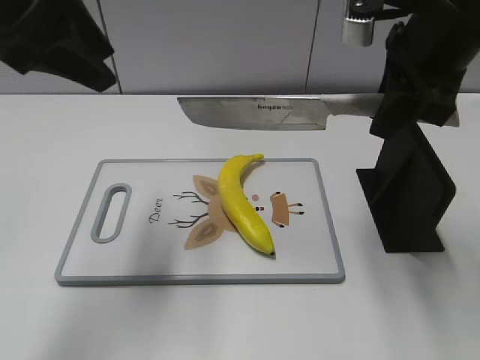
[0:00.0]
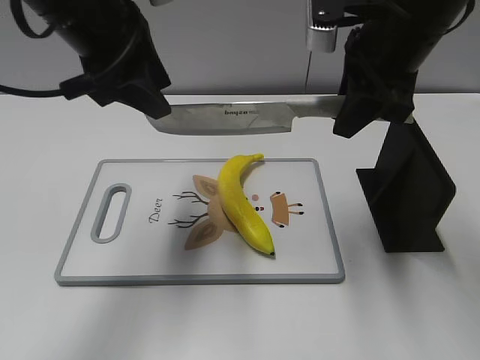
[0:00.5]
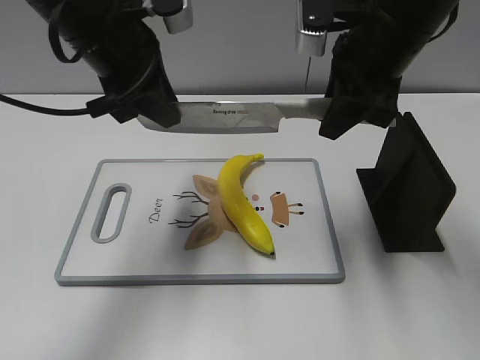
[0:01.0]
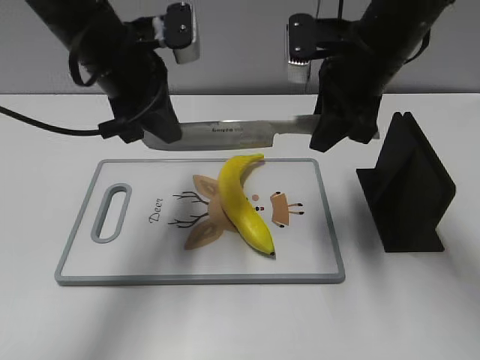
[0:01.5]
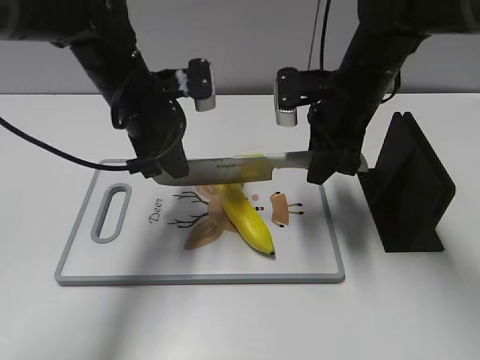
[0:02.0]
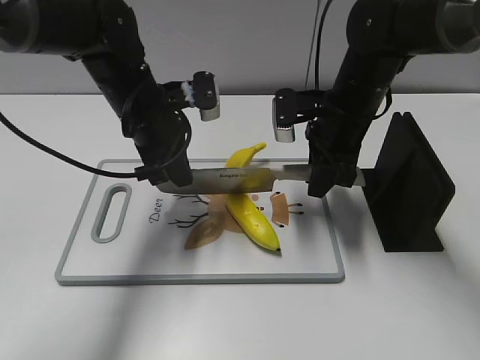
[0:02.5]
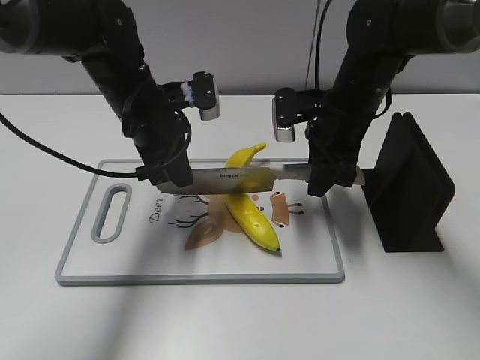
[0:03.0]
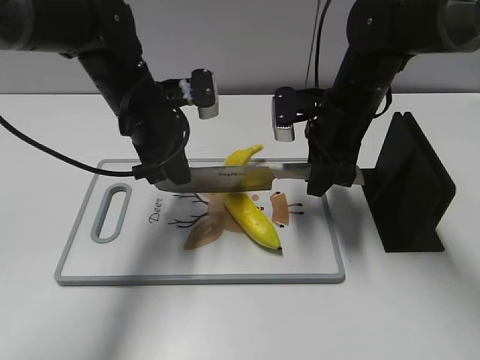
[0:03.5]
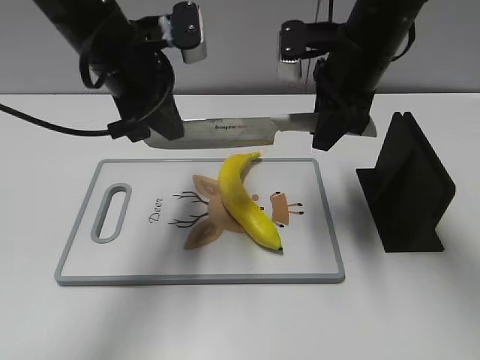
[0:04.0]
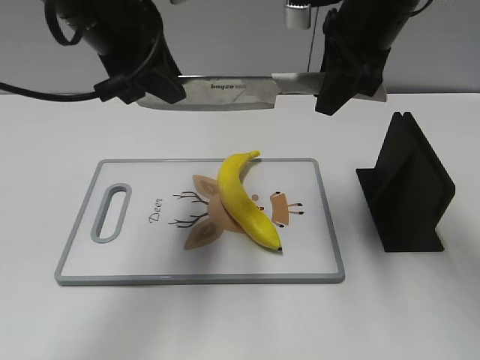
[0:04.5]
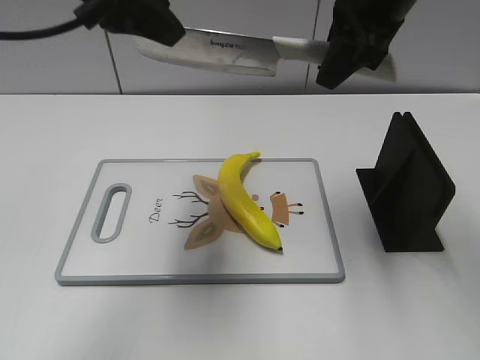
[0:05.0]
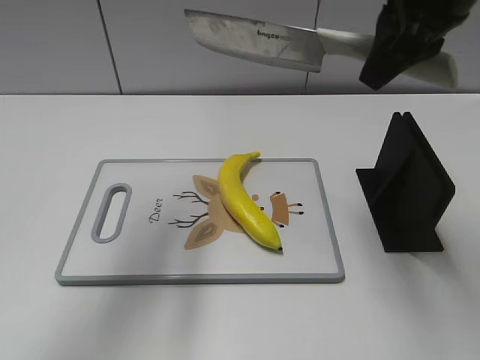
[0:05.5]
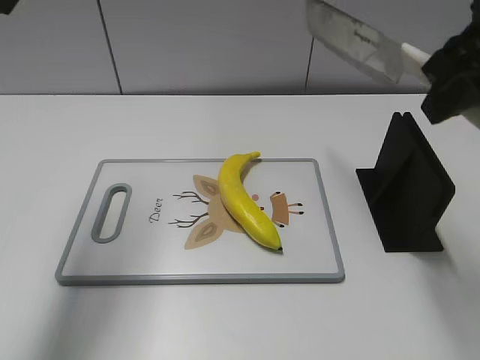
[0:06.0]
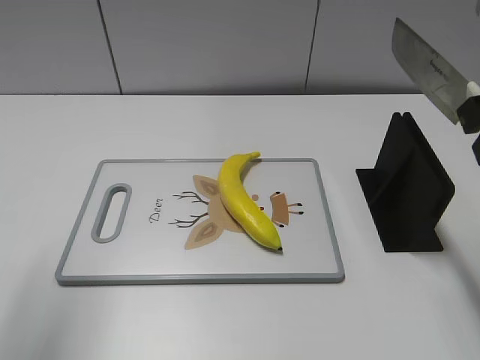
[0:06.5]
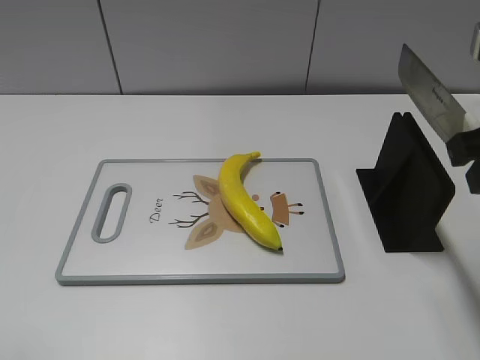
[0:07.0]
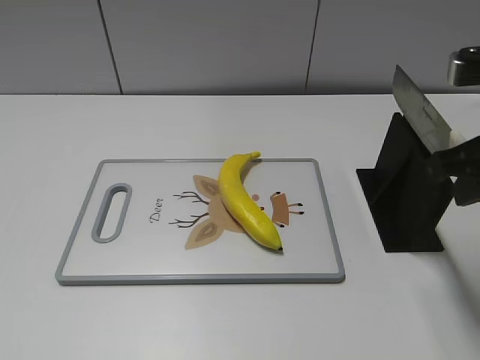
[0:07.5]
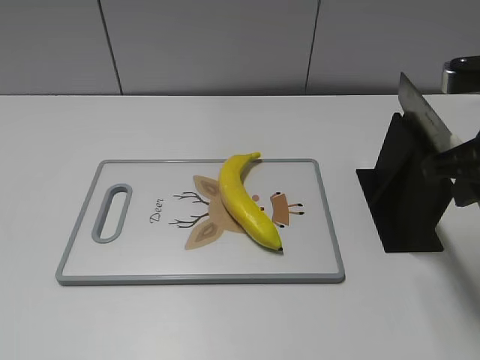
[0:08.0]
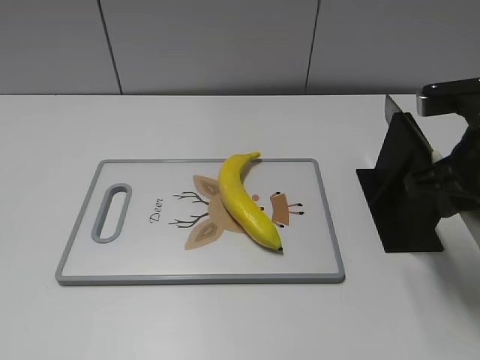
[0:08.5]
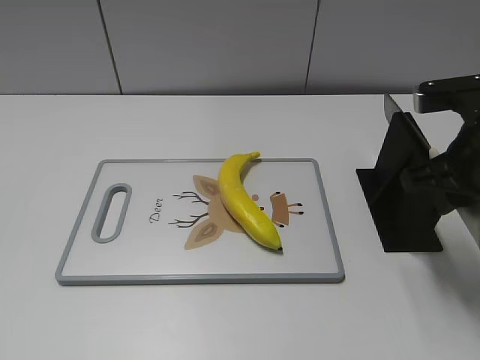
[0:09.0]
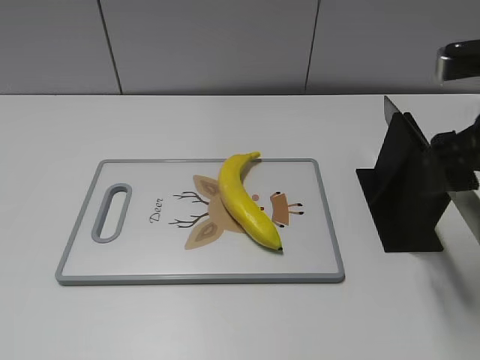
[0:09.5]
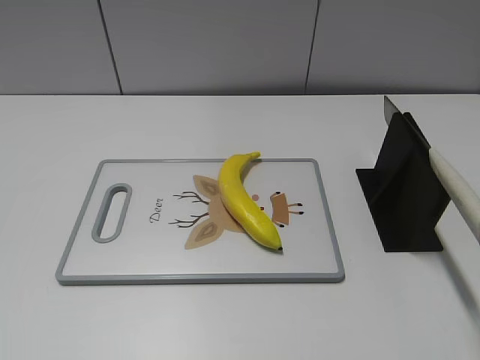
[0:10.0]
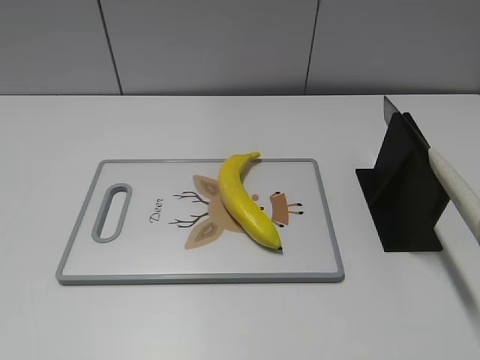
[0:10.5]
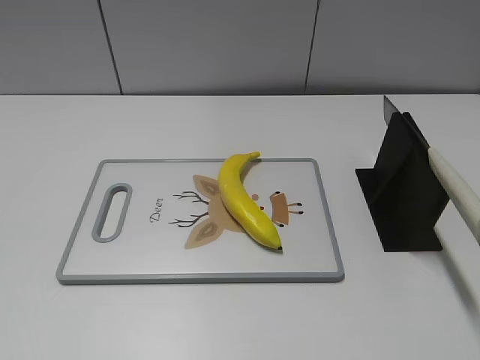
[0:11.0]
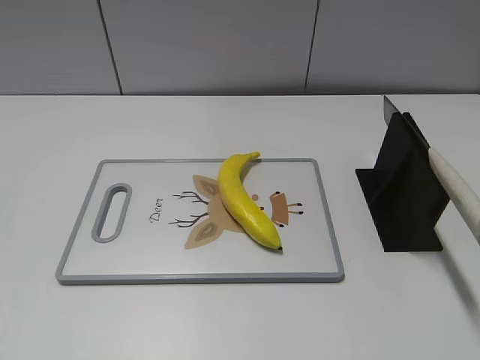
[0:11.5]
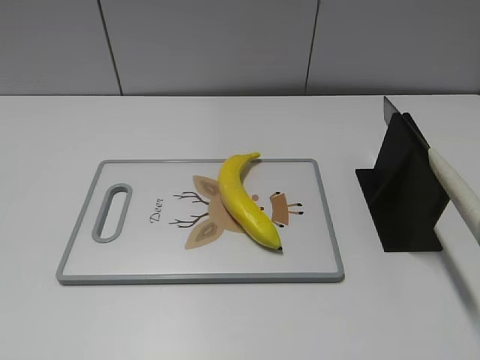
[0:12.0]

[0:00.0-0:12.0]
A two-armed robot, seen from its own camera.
Task of the whole recording: cut plastic banana.
Step, 0:00.0 to 0:03.0: Lift the knife with your right hand.
Step, 0:04.0 to 0:05.5: Cut the banana with your right hand.
Step, 0:06.5 to 0:07.0: Lift the knife with your right hand.
Step, 0:07.5 to 0:12.0: Place the knife on the storage rack with your right hand.
0:00.0 to 0:02.0: The left gripper travels downward, to the right and forward by some 20 cm, and closes up; the right gripper moves downward and forward, about 15 cm.
0:02.0 to 0:04.0: The grippers both shift upward by approximately 5 cm.
0:04.0 to 0:06.0: The left gripper travels upward, to the left and backward by roughly 20 cm, and opens, while the right gripper shifts approximately 20 cm backward, upward and to the right.
0:06.0 to 0:08.0: The left gripper is displaced backward and downward by roughly 30 cm; the right gripper shifts approximately 10 cm downward.
0:08.0 to 0:10.0: The right gripper travels backward and upward by some 10 cm, and opens its fingers.

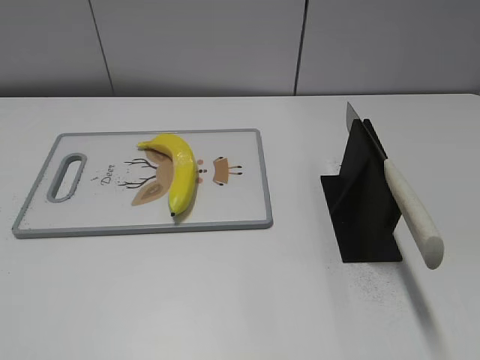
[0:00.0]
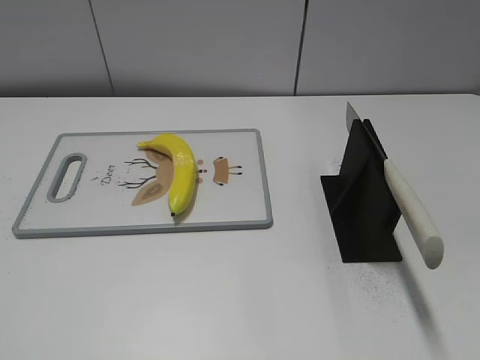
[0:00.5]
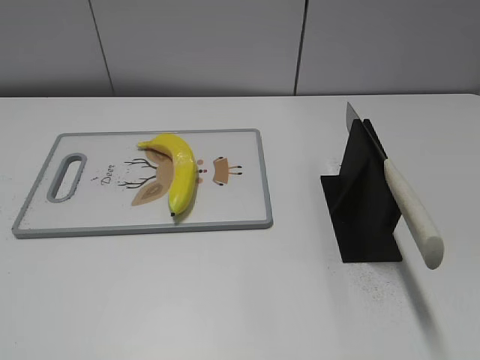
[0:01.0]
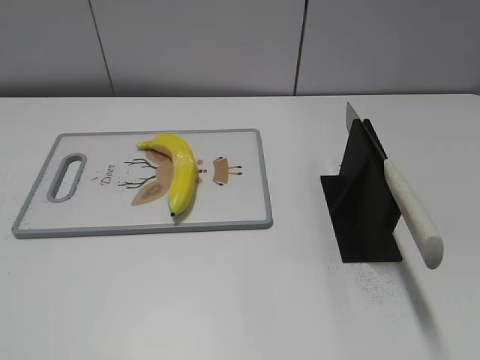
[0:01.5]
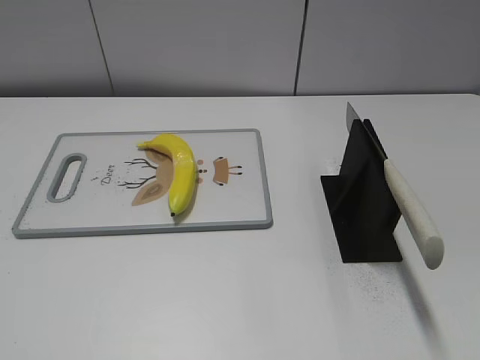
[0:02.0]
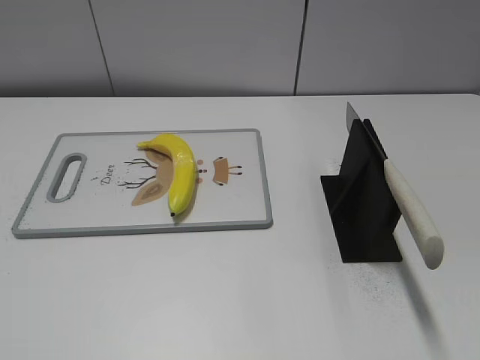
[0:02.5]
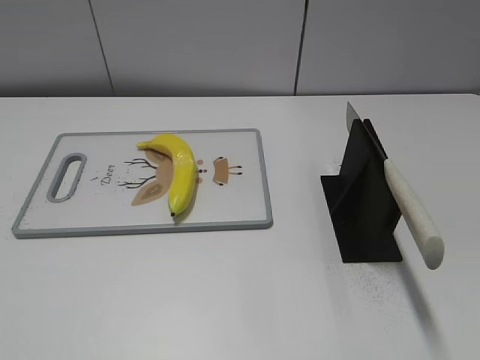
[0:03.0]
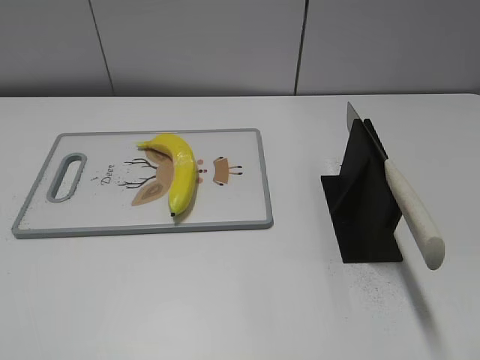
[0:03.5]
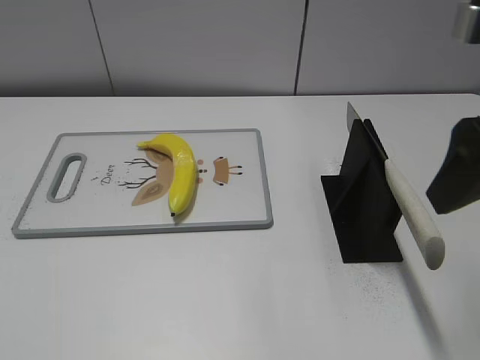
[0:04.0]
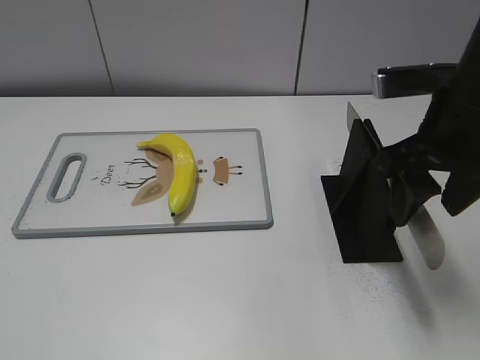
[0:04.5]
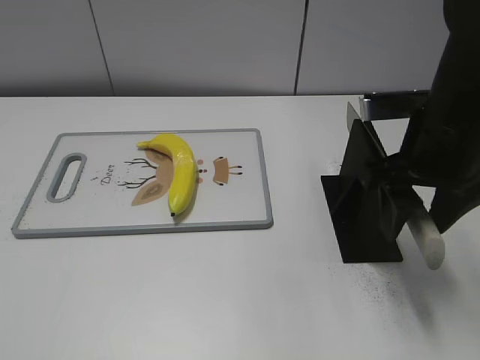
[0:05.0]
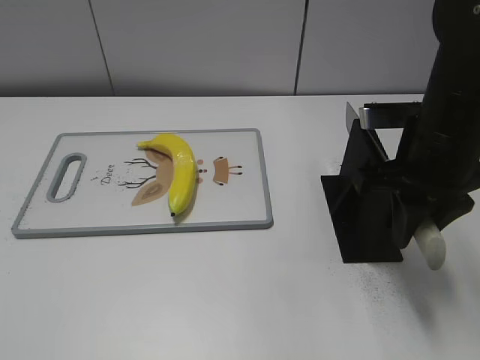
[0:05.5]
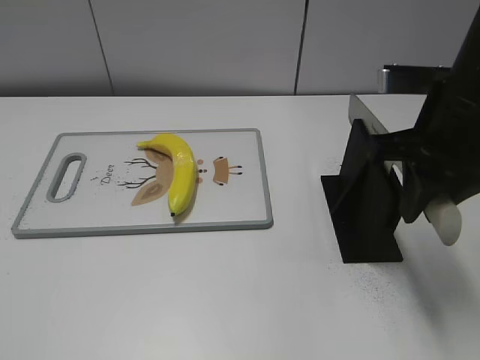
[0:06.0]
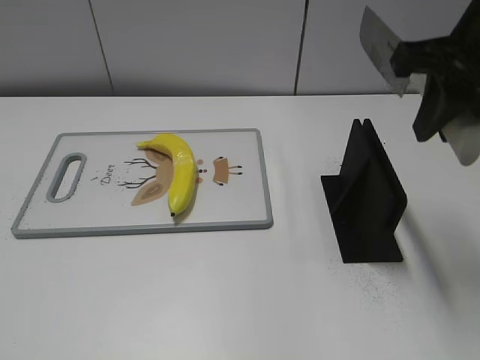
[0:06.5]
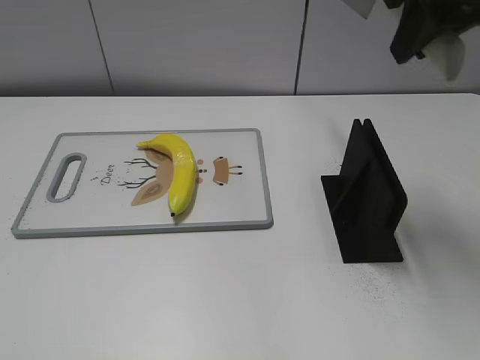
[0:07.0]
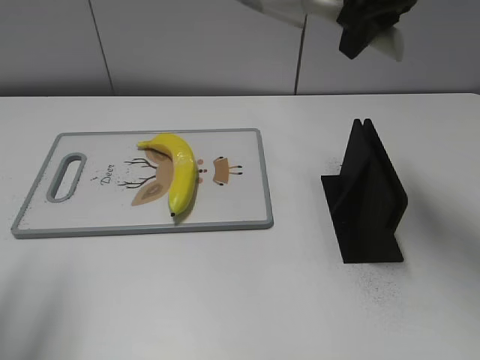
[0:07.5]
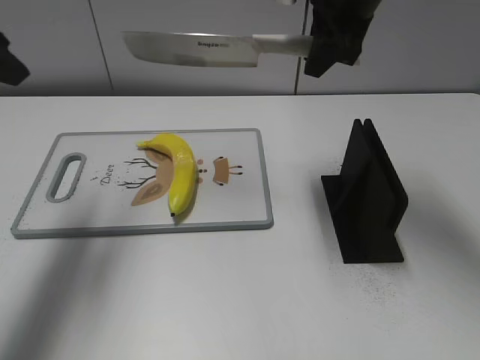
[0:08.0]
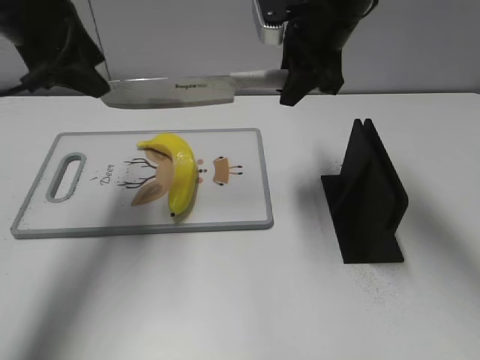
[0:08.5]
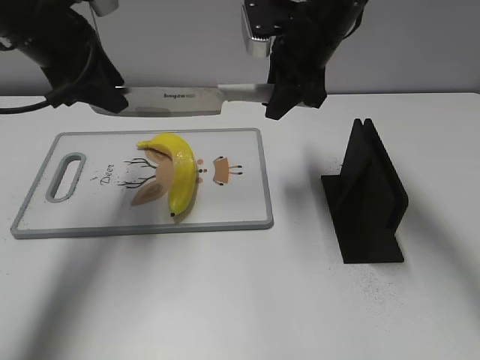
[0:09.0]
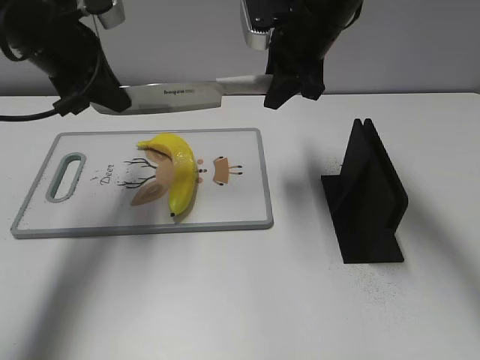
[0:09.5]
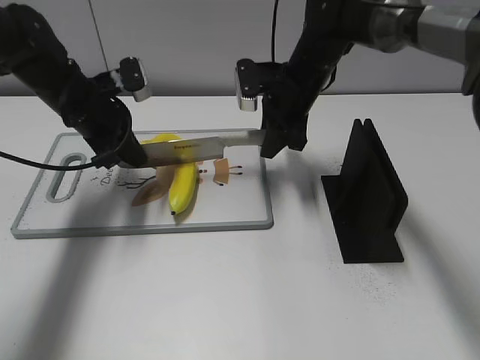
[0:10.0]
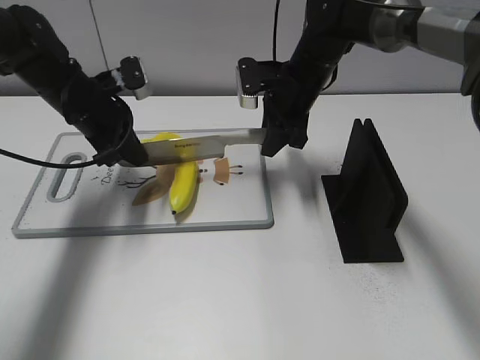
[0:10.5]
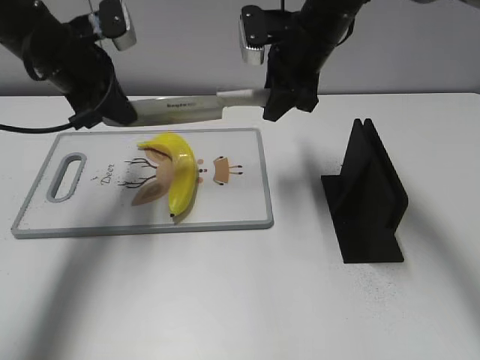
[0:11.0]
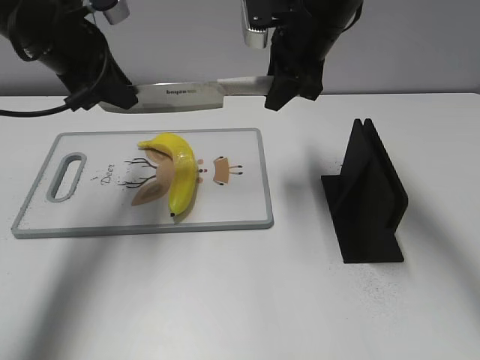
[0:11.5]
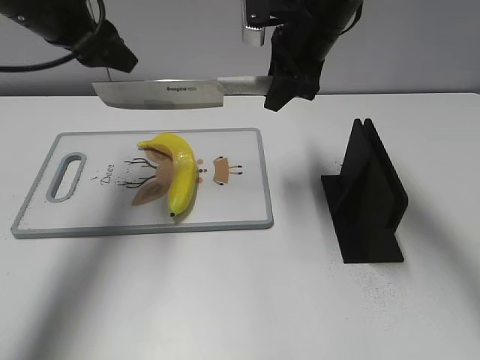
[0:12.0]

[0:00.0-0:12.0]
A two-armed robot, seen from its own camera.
Task of the whole recording: cut plastic banana.
Step, 0:00.0 to 0:06.5: Grab the knife handle with your right hand.
Step, 0:07.0 to 0:11.5: Lift the knife with your right hand.
0:02.0 to 0:04.0: The right gripper is displaced forward by roughly 20 cm.
0:04.0 to 0:06.0: The right gripper moves forward and downward, approximately 10 cm, and closes up.
0:06.0 to 0:08.0: The left gripper heads forward, covering approximately 30 cm; the right gripper travels forward and to the left by some 15 cm.
0:08.0 to 0:10.0: The left gripper heads downward and forward, covering roughly 20 cm, and closes up. The right gripper is displaced downward by roughly 15 cm.
0:10.0 to 0:12.0: The two grippers go roughly 10 cm upward. The left gripper opens up.

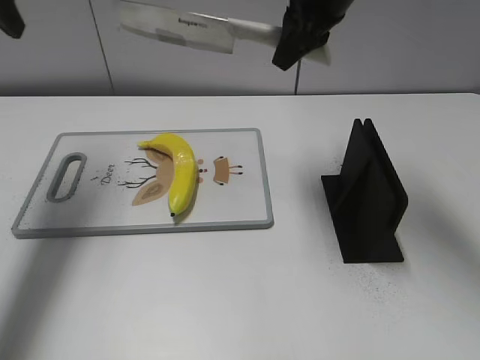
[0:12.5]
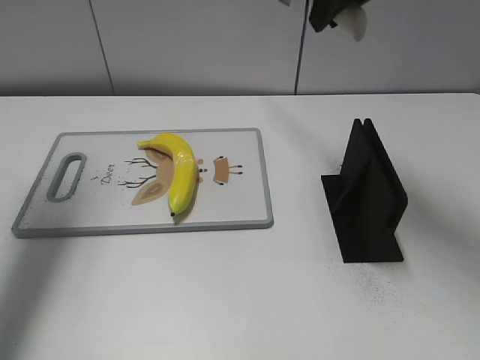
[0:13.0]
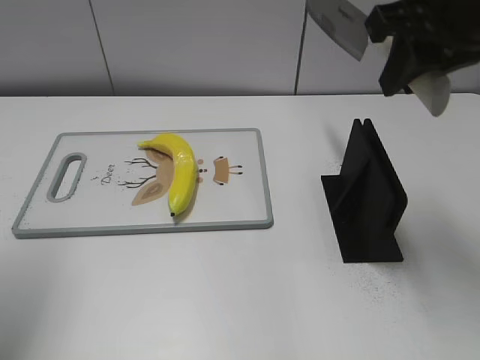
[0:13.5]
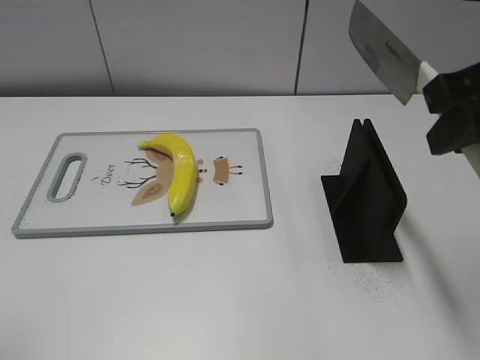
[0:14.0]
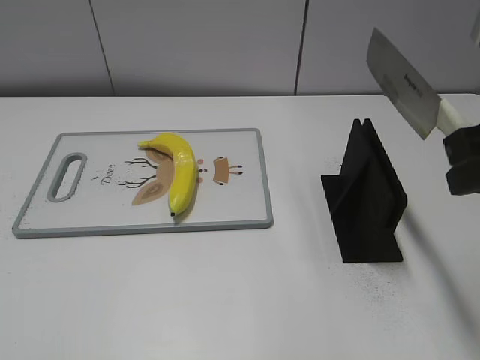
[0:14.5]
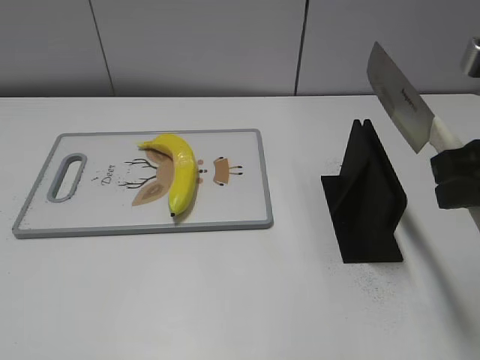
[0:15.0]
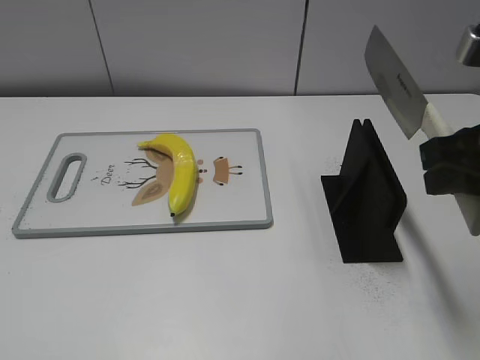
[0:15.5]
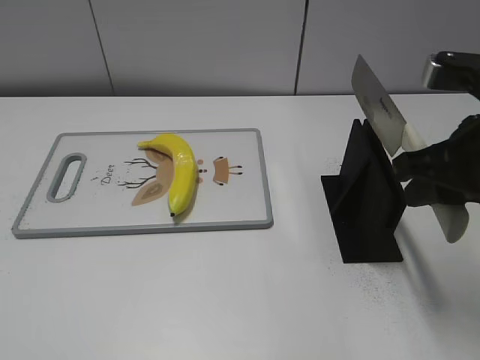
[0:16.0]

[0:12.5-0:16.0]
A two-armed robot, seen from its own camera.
Task of the whole recording: cut plastic banana.
Step, 0:13.5 to 0:14.0: Lift the knife with your right hand.
0:12.5 to 0:14.5: The right gripper shifts roughly 25 cm backward and to the right, while the left gripper travels backward by approximately 40 cm.
0:14.5 to 0:16.0: The right gripper ends up some 5 cm from where it was.
